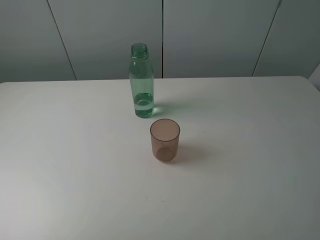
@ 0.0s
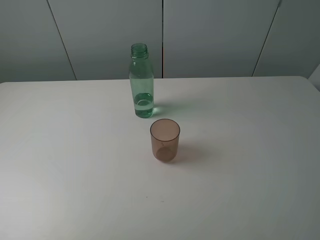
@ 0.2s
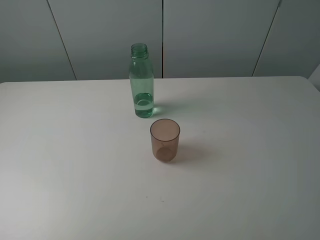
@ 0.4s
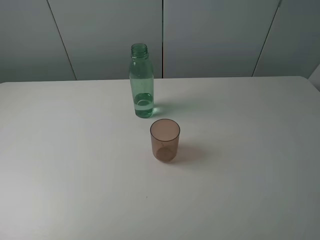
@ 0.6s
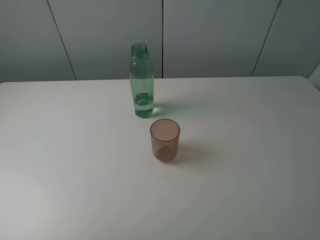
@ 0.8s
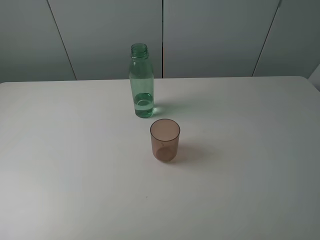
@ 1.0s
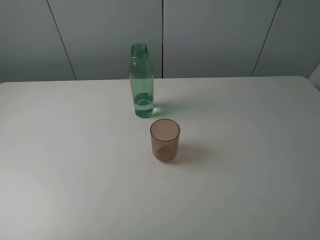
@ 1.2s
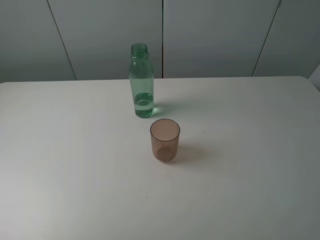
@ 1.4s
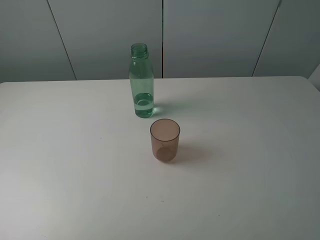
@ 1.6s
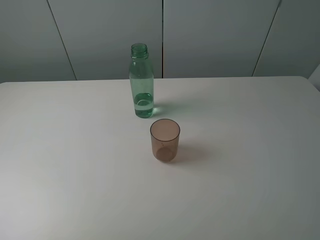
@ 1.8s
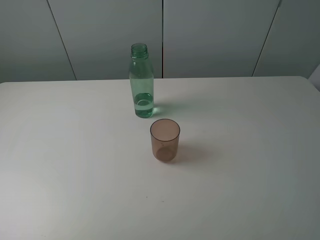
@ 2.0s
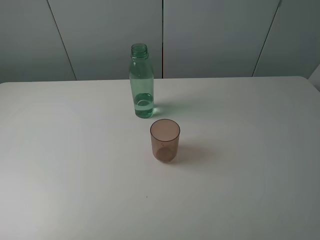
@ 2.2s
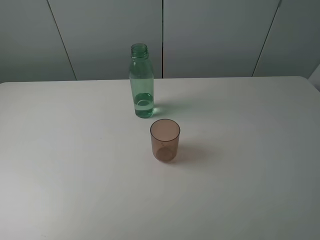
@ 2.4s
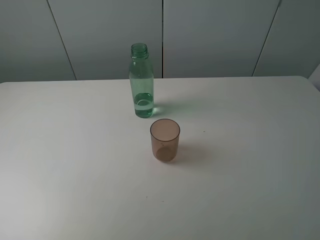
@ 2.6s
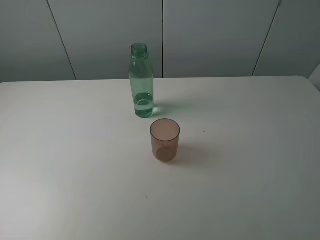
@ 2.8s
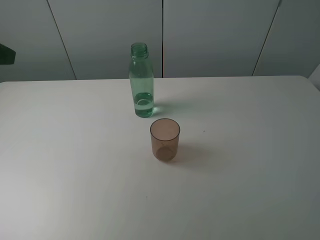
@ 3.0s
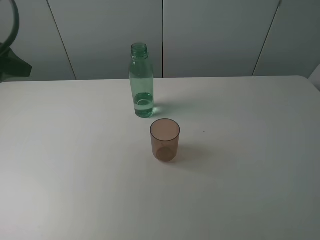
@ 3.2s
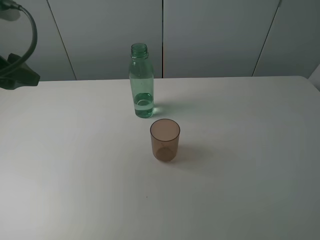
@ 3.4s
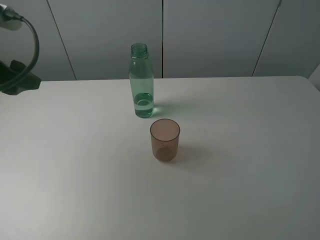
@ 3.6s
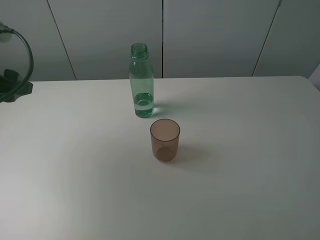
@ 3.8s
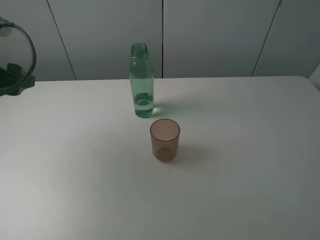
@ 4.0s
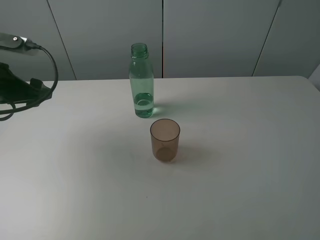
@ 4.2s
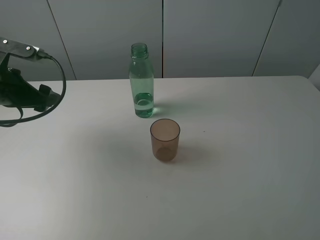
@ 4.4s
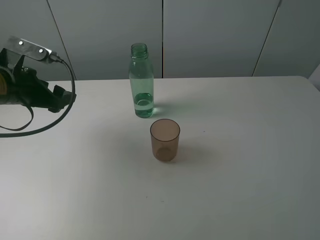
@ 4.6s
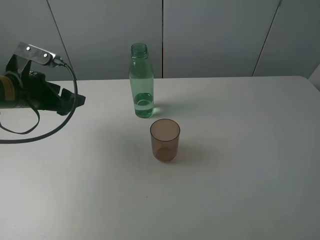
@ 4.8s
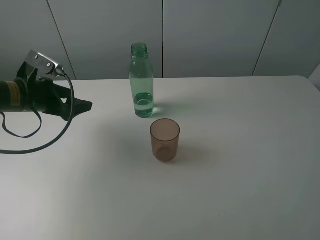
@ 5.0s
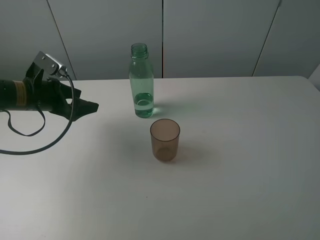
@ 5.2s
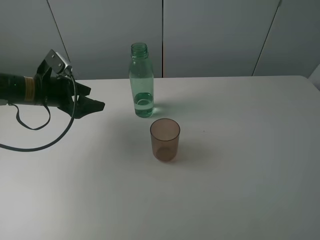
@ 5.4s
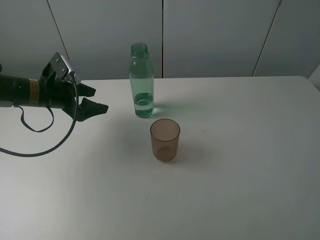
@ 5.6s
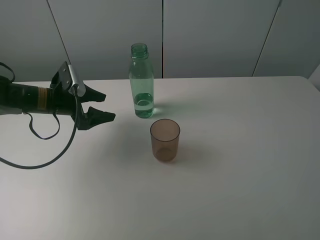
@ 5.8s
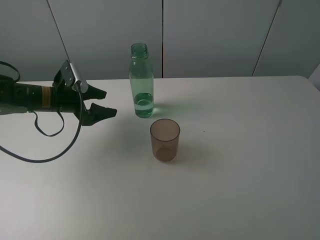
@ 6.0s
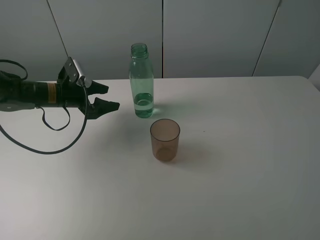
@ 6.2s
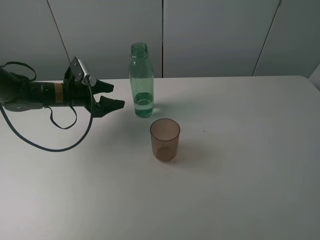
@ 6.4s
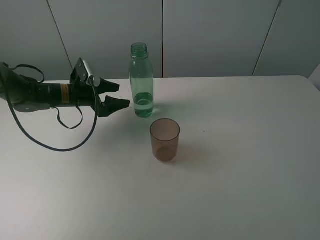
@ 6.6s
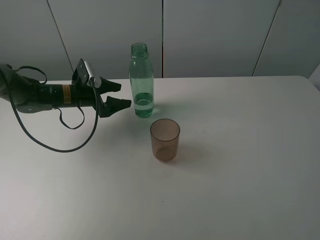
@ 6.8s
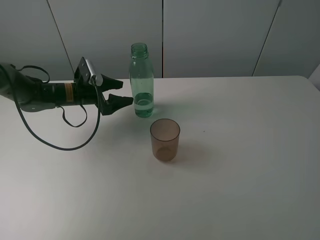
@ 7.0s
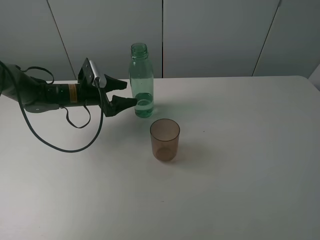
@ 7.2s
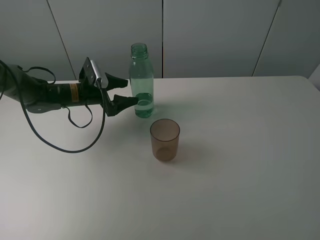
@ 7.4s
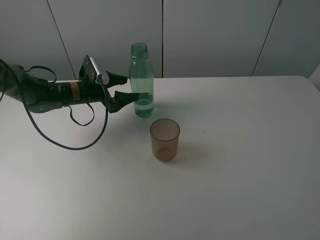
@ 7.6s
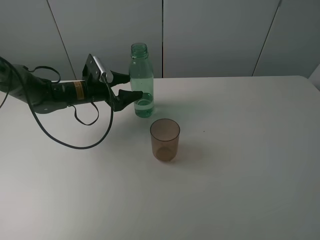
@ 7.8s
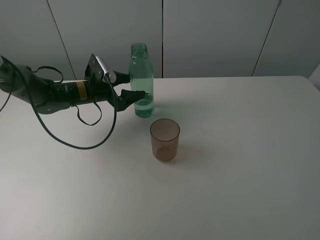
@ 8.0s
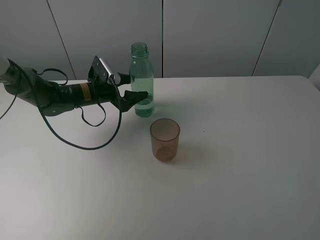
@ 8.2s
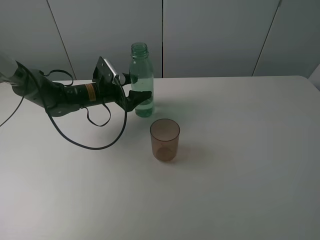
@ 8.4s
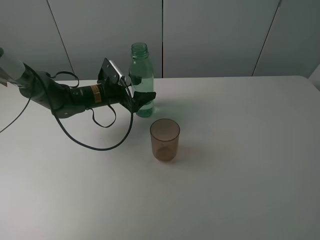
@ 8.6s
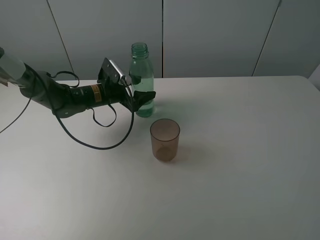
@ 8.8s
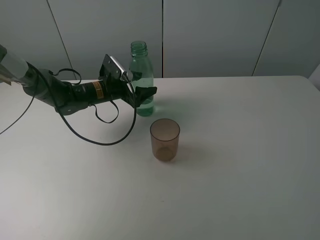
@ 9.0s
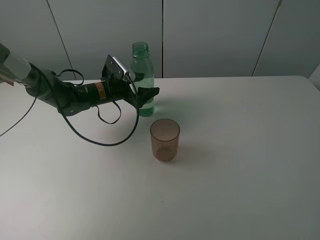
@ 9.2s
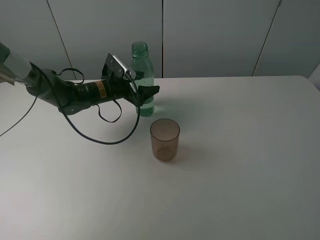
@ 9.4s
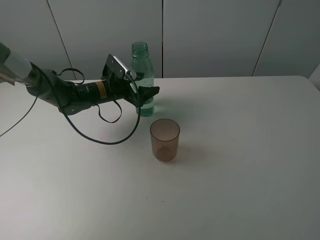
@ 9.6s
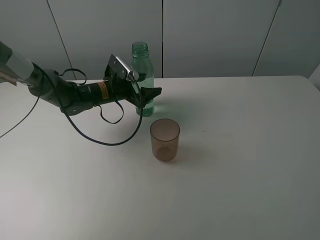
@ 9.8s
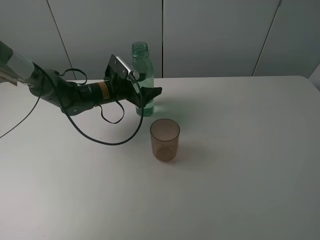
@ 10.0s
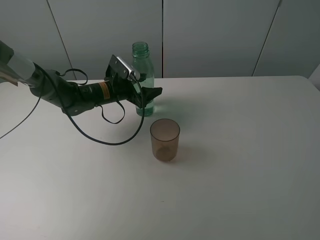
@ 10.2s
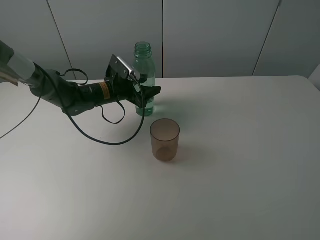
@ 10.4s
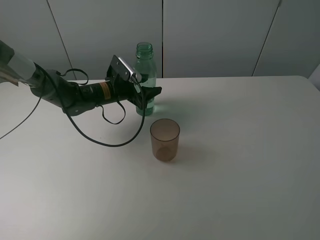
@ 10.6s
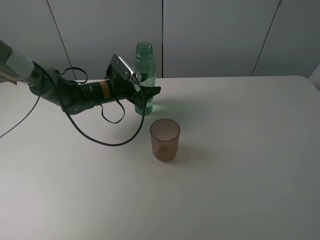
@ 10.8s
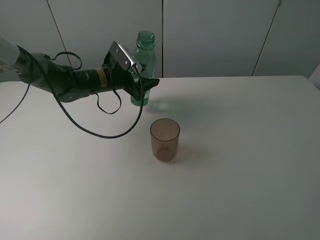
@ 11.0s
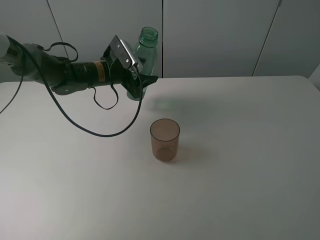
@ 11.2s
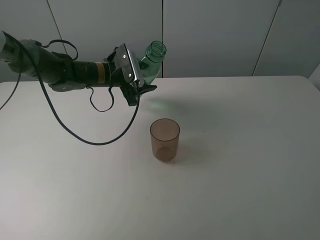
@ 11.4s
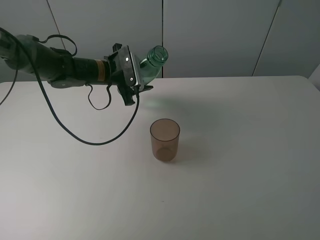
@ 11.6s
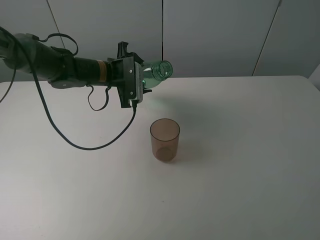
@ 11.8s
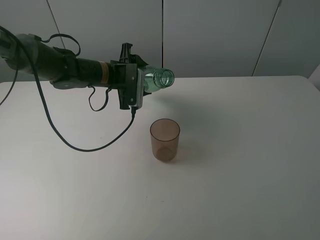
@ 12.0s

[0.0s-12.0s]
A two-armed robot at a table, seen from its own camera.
Task of the whole recording: pick up the bottle filled with water and pour it into the pink cup.
Step, 0.0s to 10.8s: Grasp the green bottle with the left gripper.
0.0s to 1.6s: Neither gripper changes place.
3.0s to 4.4s: The left gripper goes about 15 cm downward and forward.
4.4s to 6.0s: The left gripper shifts roughly 15 cm downward, forward and to the right.
6.0s to 7.6s: The left gripper changes place by roughly 5 cm.
7.6s to 9.0s: The left gripper travels to the right by approximately 5 cm.
9.0s to 10.4s: The left gripper closes its fingers.
10.4s to 12.0s: The left gripper is displaced upward by roughly 5 cm.

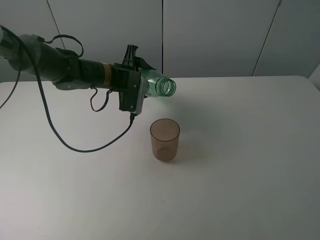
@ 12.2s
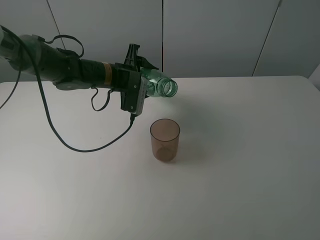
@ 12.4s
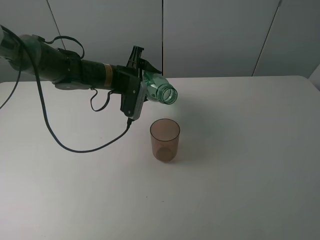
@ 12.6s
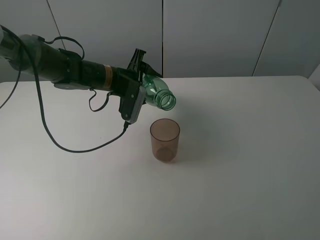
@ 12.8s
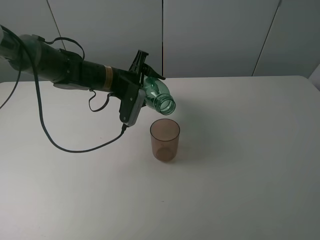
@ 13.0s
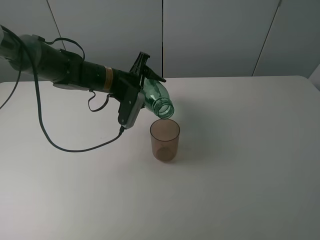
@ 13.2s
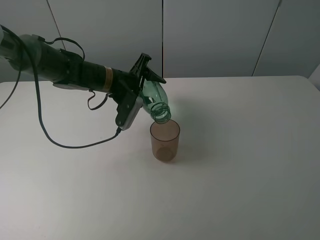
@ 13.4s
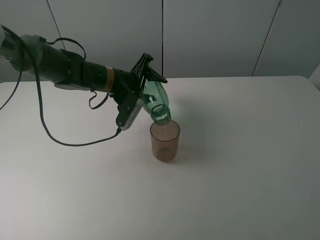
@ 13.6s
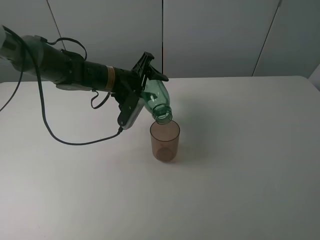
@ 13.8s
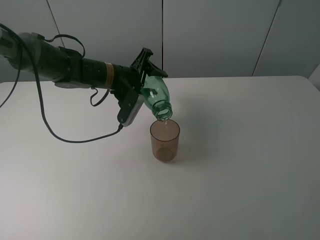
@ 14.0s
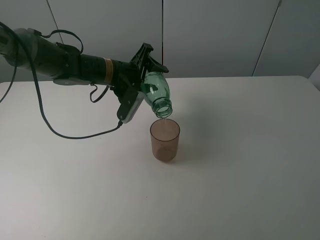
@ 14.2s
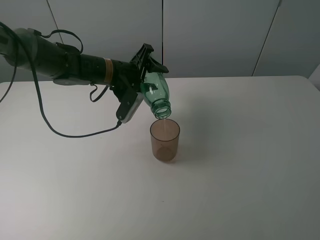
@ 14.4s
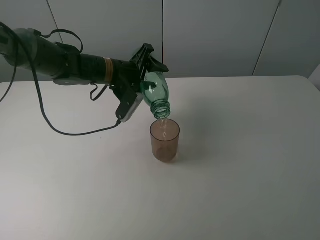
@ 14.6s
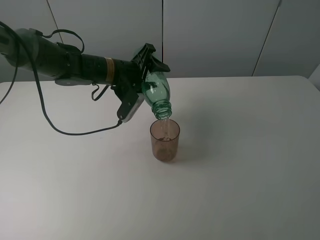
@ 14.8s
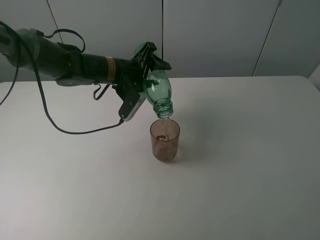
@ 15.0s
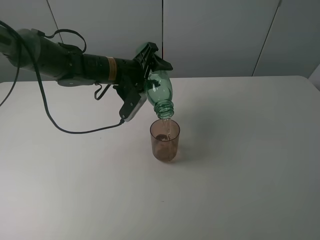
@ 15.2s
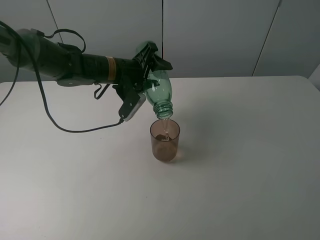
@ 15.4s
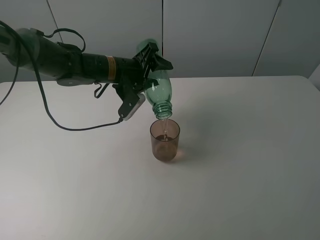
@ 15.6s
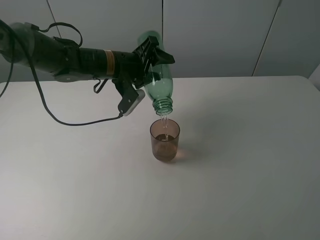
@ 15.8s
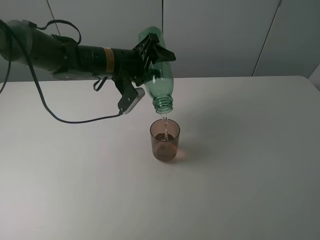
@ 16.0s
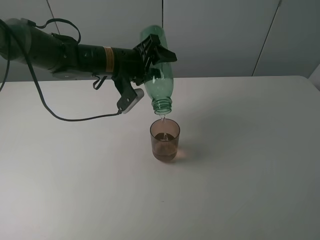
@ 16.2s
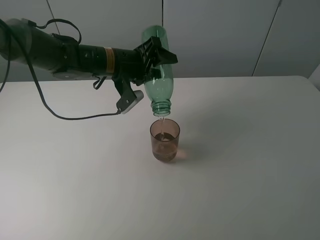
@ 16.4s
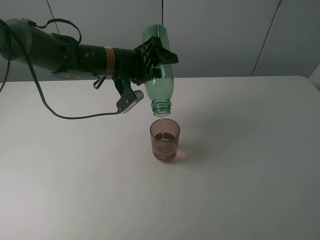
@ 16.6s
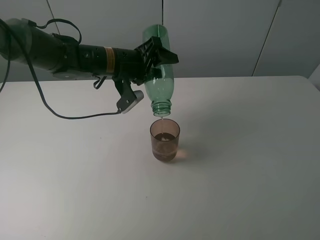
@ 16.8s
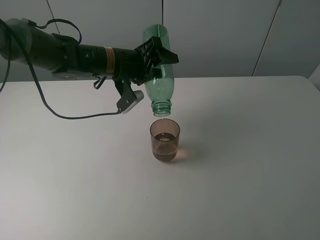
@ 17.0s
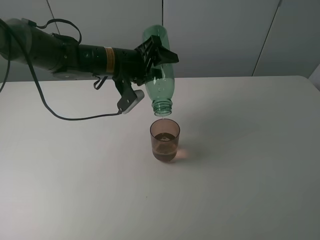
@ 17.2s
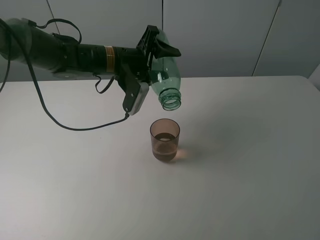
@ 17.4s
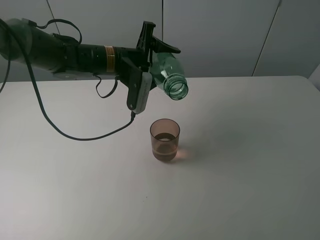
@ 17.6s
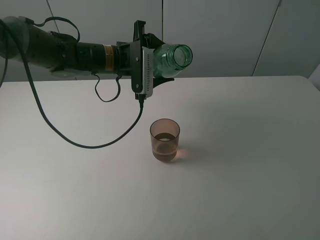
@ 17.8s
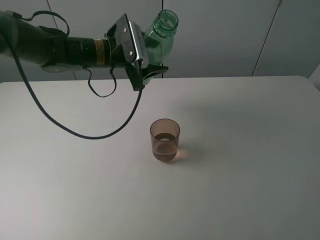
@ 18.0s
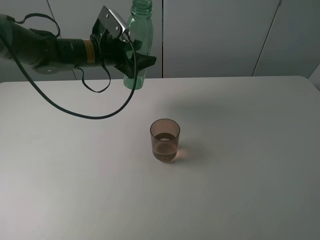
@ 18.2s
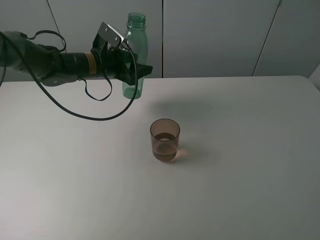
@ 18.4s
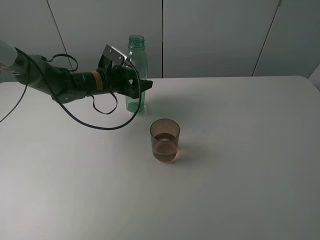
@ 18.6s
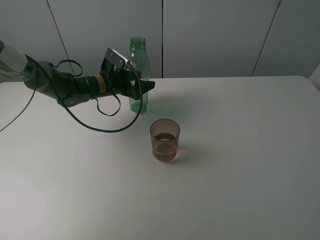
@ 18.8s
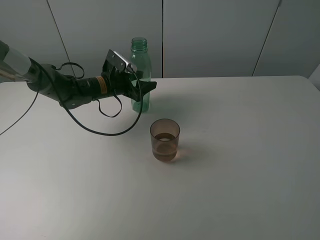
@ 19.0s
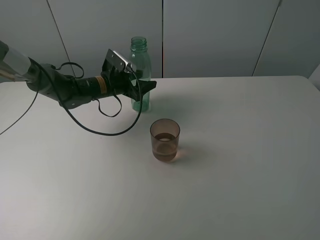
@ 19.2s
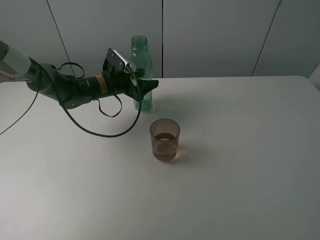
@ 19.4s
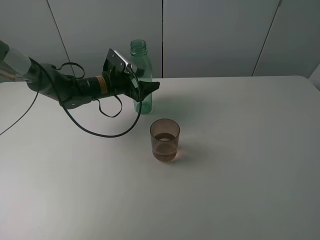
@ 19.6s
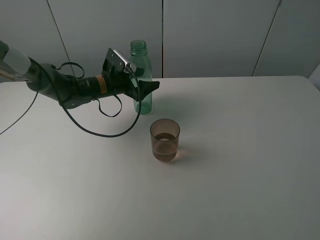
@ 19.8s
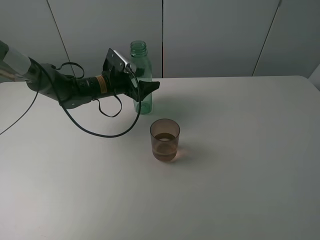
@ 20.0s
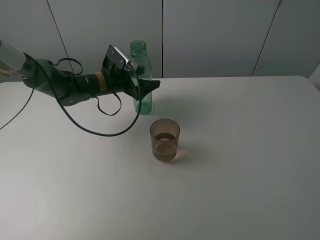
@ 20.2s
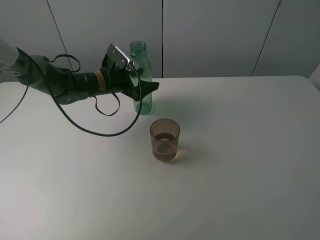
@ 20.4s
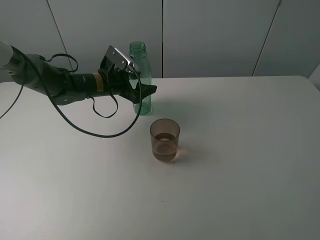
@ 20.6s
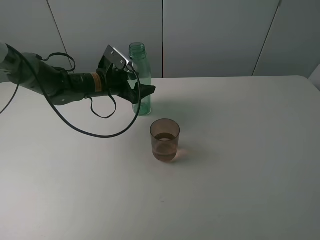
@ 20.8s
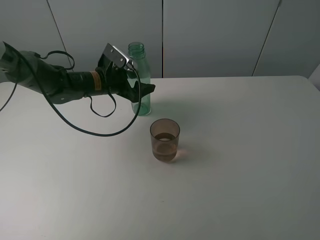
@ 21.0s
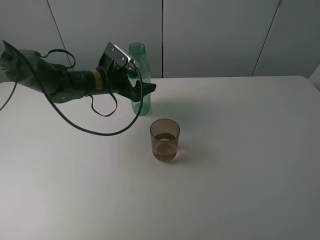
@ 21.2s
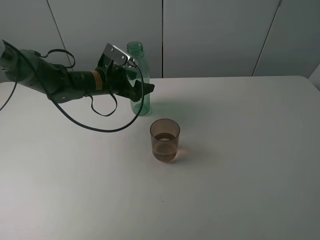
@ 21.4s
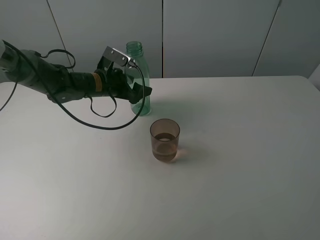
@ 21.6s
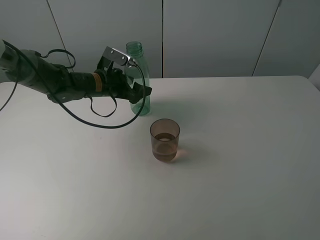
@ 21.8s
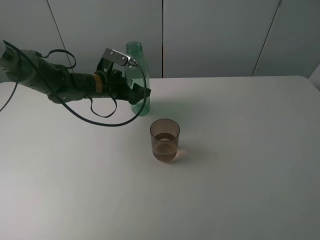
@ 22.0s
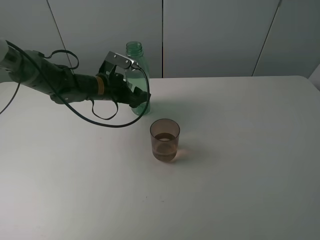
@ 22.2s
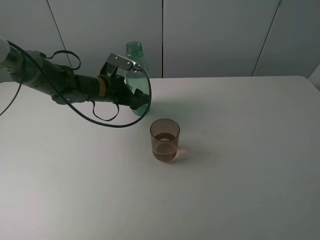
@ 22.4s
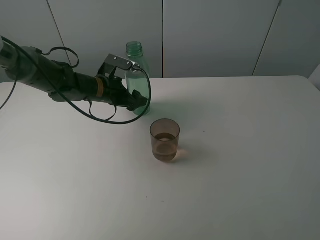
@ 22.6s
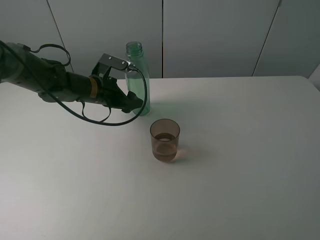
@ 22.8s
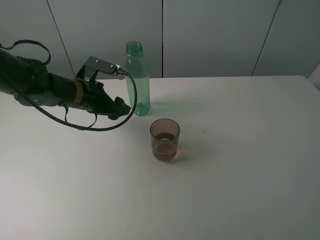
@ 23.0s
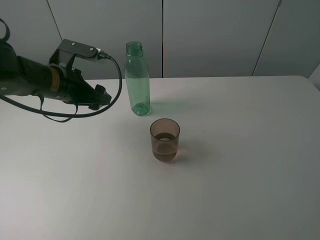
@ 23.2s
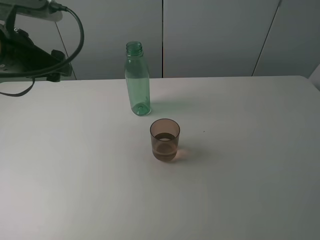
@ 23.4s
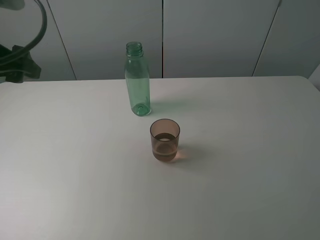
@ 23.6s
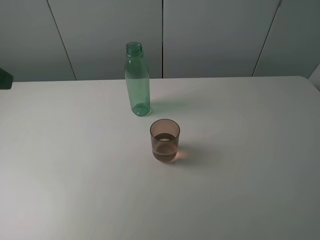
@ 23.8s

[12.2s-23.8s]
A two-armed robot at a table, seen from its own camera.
Task of the whole recording: pick up the bottle filled with water and pour it into the pink cup.
Step, 12.2s to 17.4s: Pour water from green bottle to pink cup with the left gripper.
Step, 17.6s to 22.8s: Place the green bottle with the left gripper.
13.6s to 15.0s: There are only small adjustments of the grippers.
15.0s to 16.6s: The grippers move only a little.
18.0s to 19.4s: The left gripper heads downward, covering approximately 10 cm, and opens its fingers.
19.4s to 21.0s: The left gripper opens.
21.0s to 22.4s: There are only small adjustments of the grippers.
22.4s to 23.8s: The left gripper moves backward, upward and to the left, roughly 35 cm.
